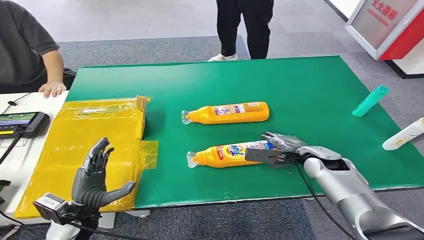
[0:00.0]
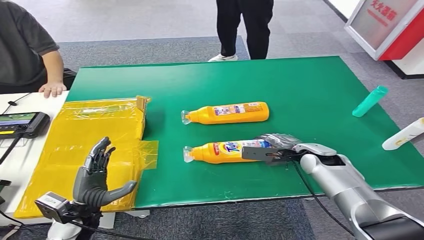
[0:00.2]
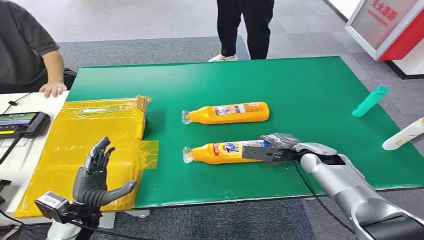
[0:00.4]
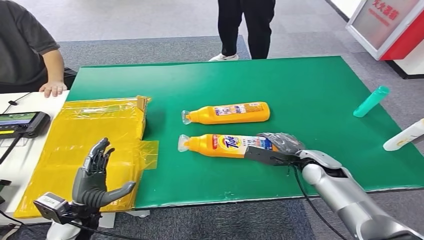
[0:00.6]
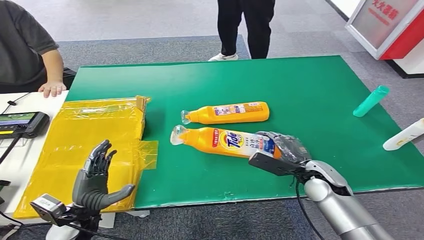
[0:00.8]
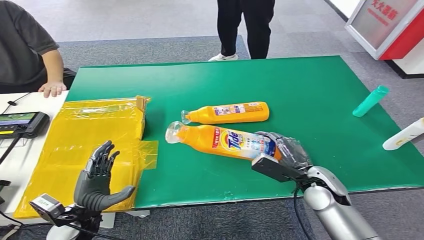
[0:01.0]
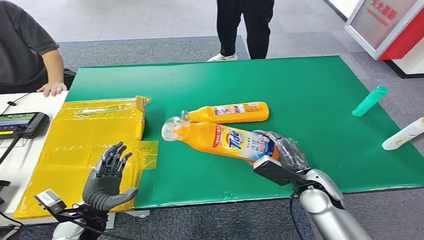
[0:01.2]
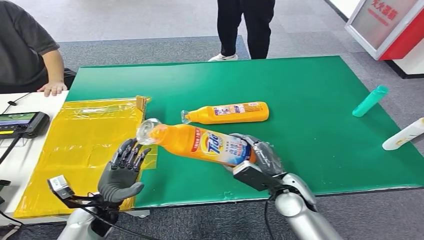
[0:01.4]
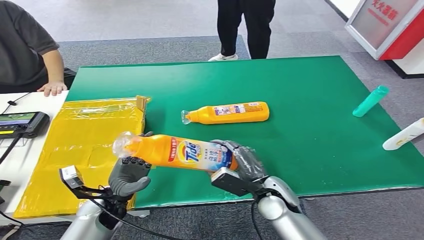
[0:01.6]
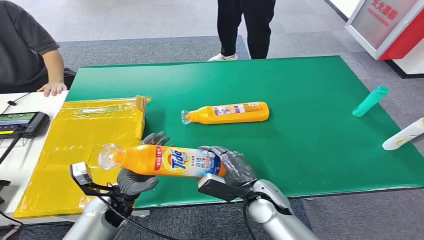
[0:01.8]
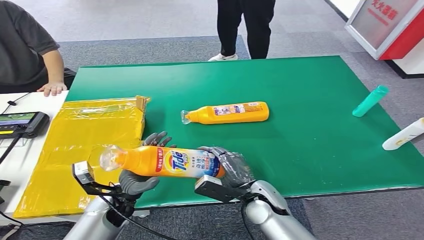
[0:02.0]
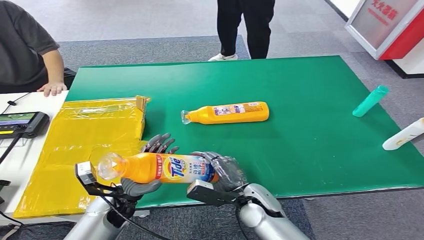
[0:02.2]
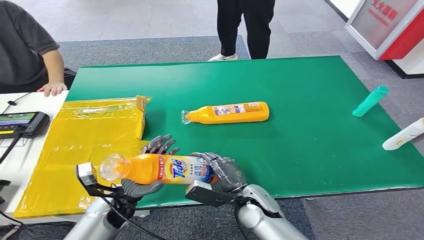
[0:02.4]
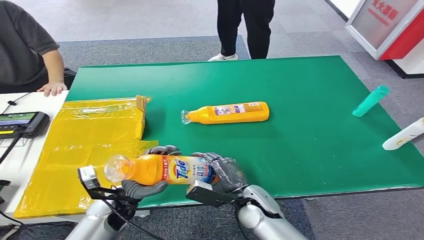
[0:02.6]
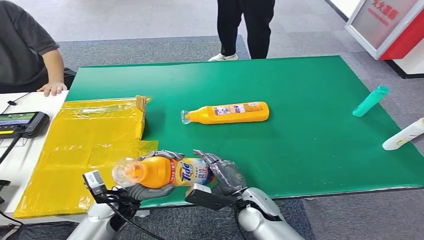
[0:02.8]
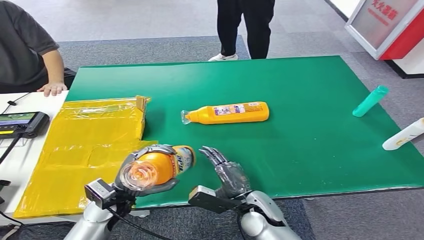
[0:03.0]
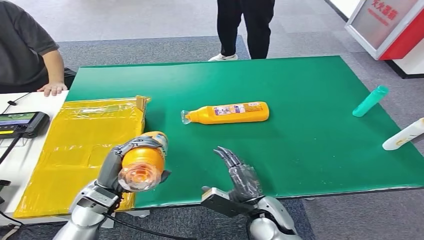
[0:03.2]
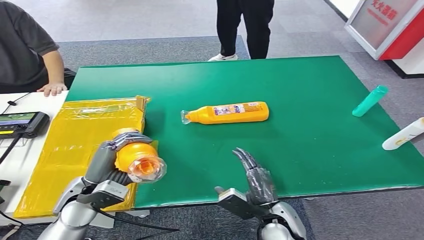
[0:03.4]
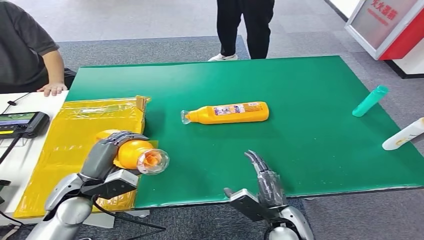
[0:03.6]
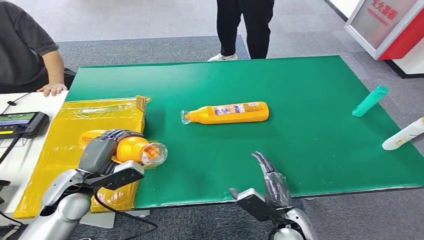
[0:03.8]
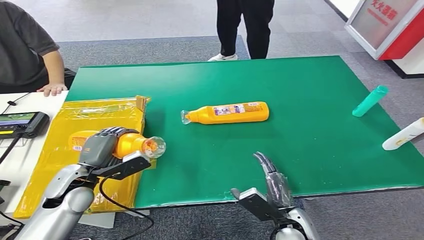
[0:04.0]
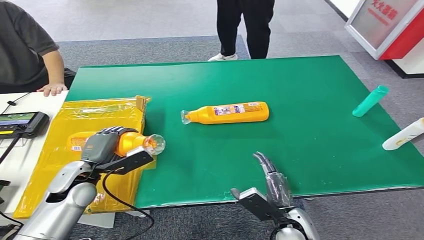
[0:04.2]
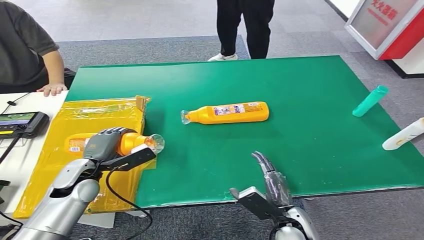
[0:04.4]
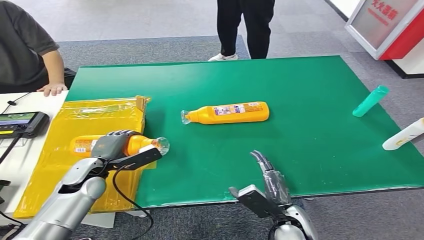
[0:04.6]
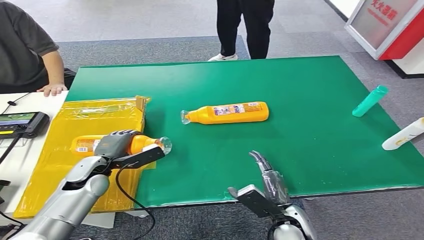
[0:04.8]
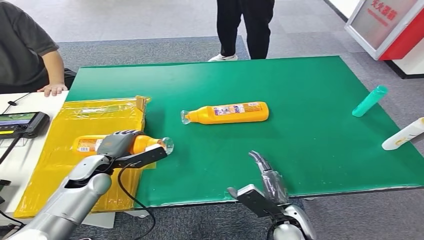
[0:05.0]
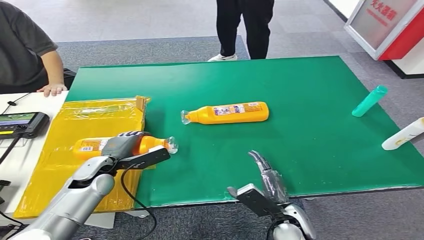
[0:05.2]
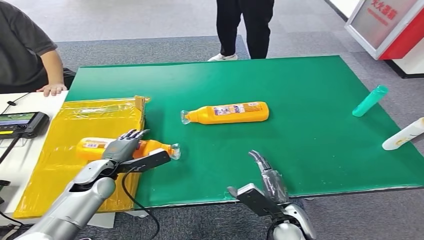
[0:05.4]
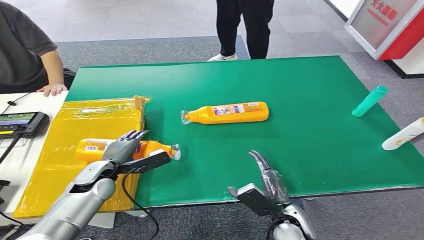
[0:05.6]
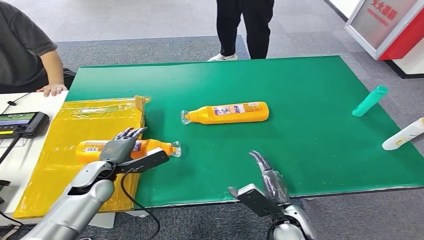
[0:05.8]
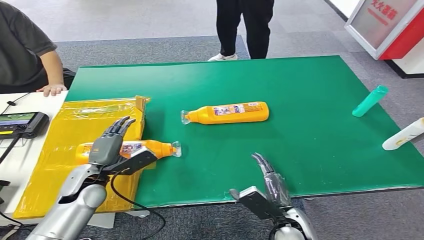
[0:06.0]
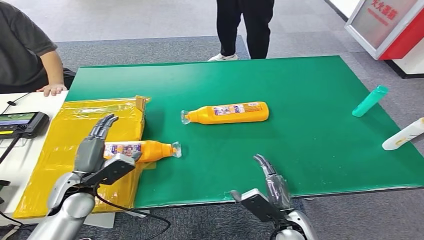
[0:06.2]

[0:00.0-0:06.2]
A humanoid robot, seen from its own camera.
Step, 0:00.0 to 0:01.4: Pick up the bottle from the table.
Step, 0:03.2 to 0:06.2: Turn the bottle to the front side.
0:01.6 to 0:03.2: The right hand is displaced backward by about 5 cm. Meanwhile the left hand moves upward, roughly 5 cm.
0:03.2 to 0:04.6: The left hand is displaced forward and to the left by roughly 10 cm, while the right hand moves approximately 5 cm.
0:04.6 to 0:06.2: The left hand heads backward, covering roughly 5 cm.
